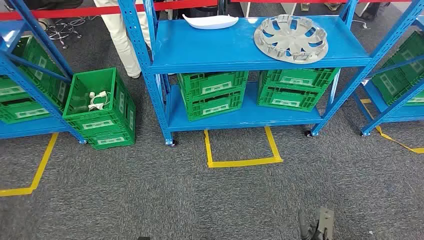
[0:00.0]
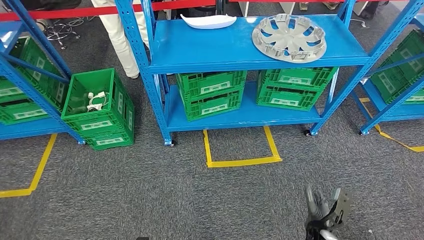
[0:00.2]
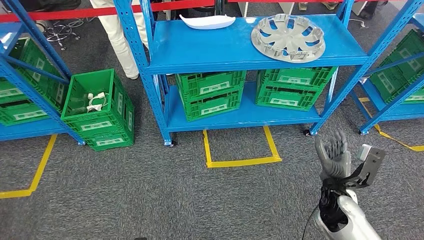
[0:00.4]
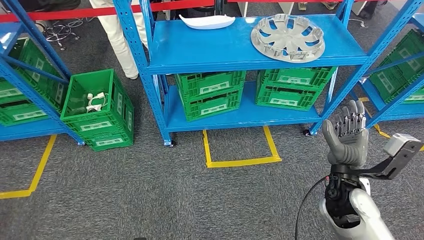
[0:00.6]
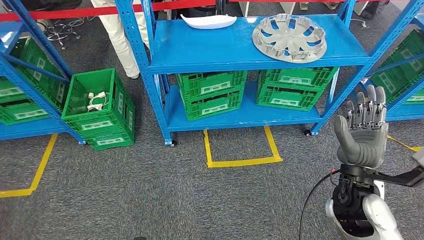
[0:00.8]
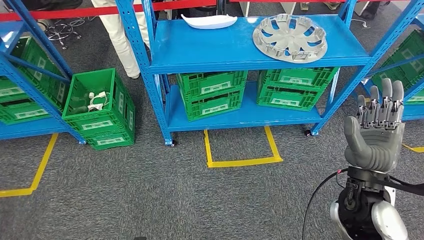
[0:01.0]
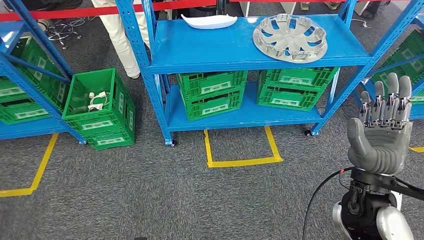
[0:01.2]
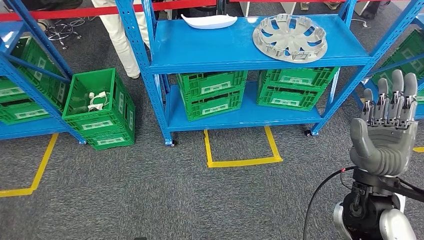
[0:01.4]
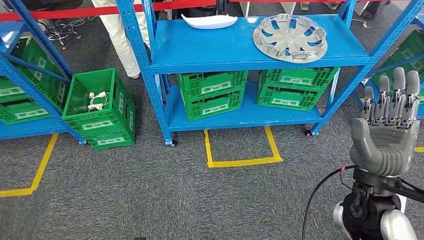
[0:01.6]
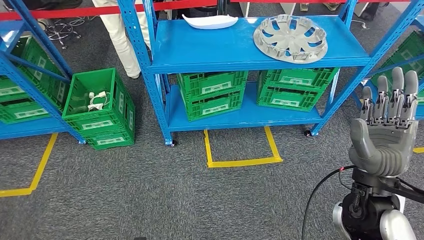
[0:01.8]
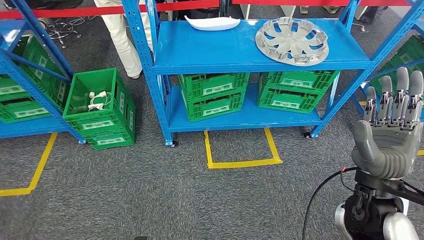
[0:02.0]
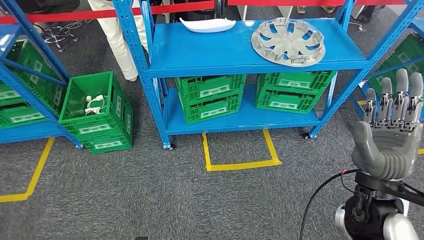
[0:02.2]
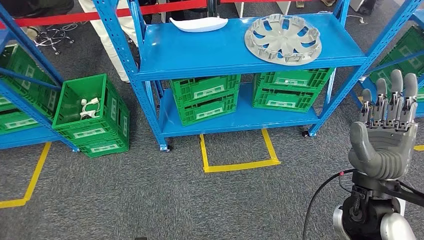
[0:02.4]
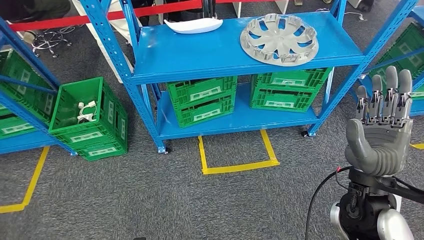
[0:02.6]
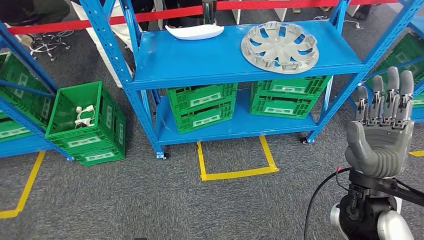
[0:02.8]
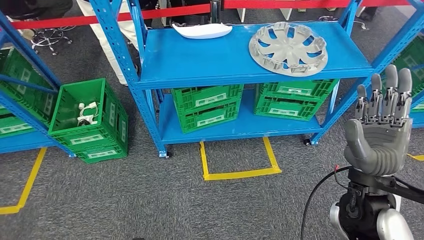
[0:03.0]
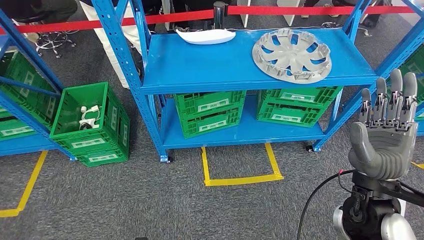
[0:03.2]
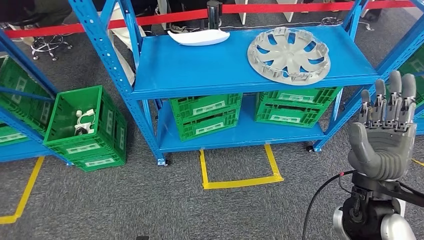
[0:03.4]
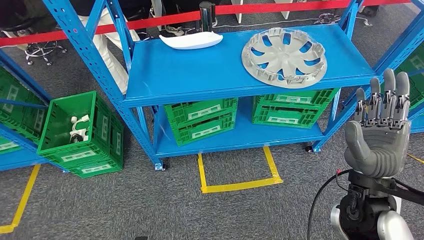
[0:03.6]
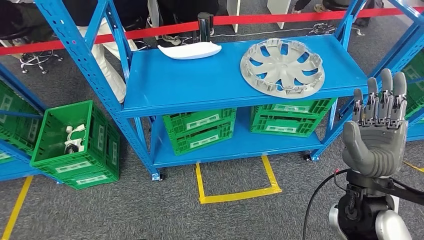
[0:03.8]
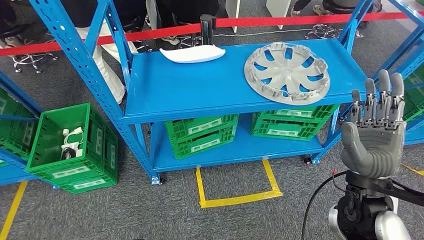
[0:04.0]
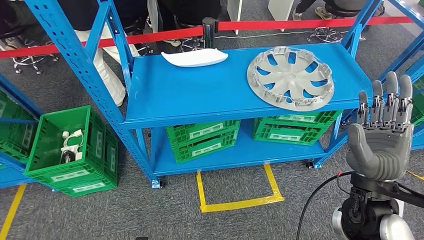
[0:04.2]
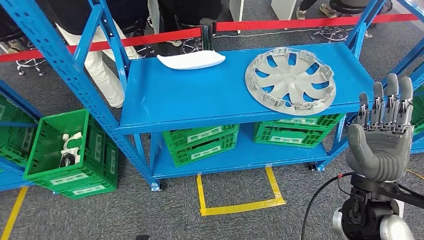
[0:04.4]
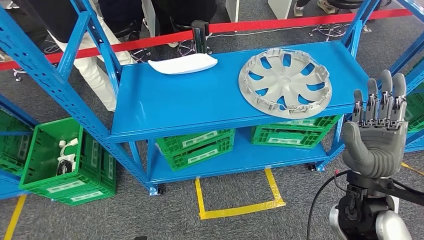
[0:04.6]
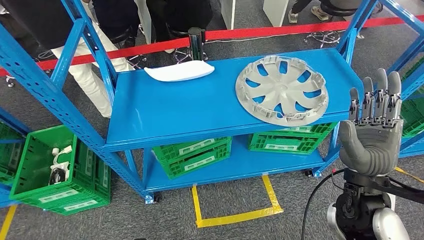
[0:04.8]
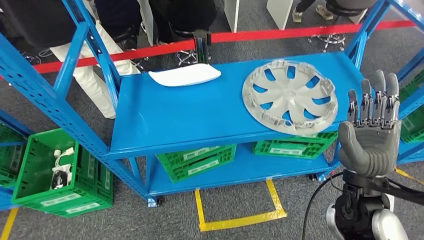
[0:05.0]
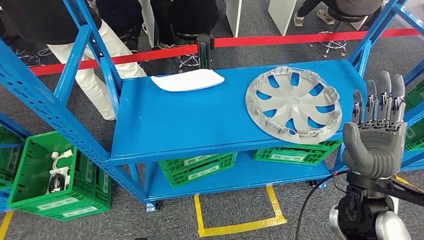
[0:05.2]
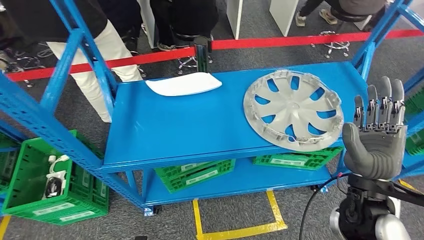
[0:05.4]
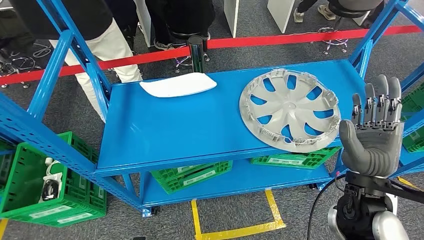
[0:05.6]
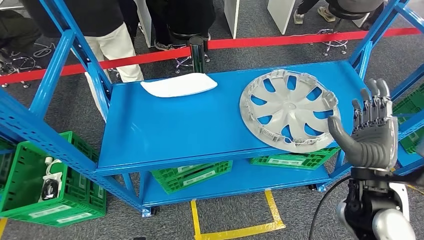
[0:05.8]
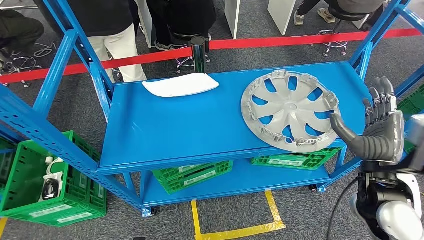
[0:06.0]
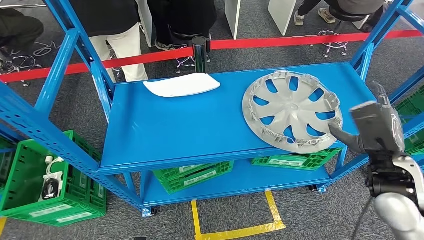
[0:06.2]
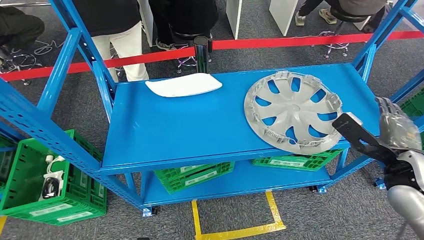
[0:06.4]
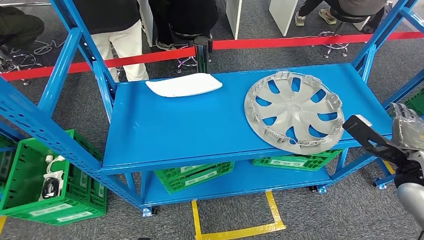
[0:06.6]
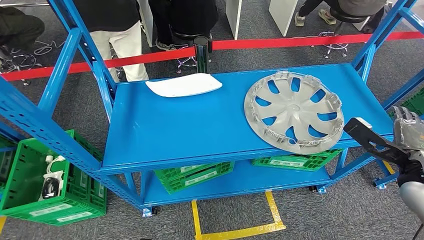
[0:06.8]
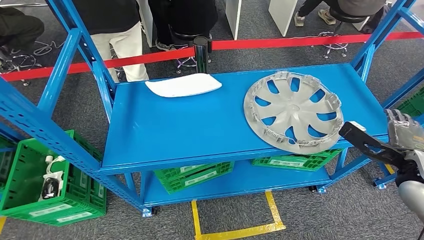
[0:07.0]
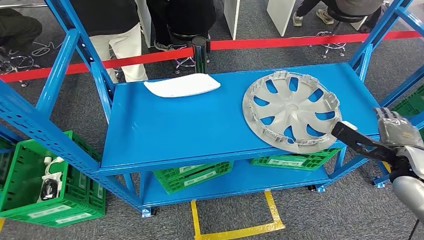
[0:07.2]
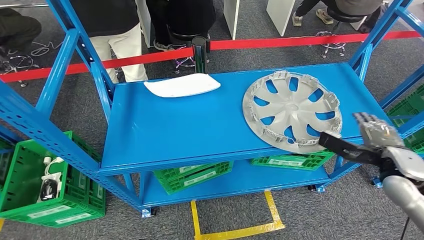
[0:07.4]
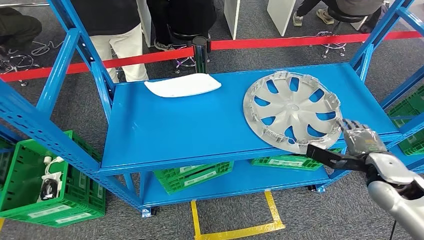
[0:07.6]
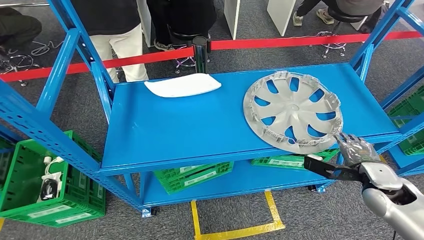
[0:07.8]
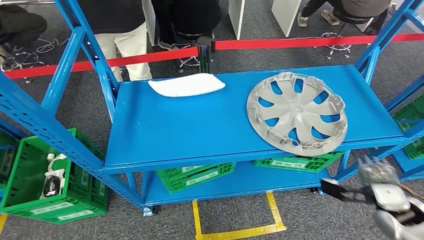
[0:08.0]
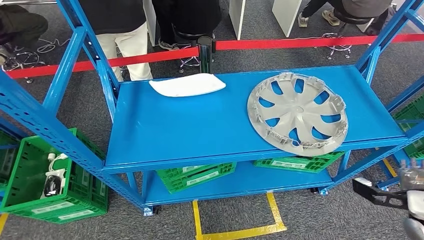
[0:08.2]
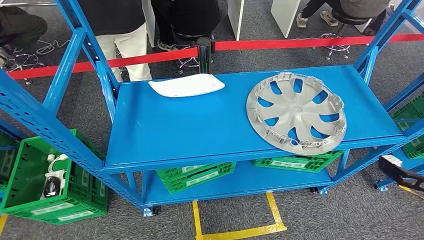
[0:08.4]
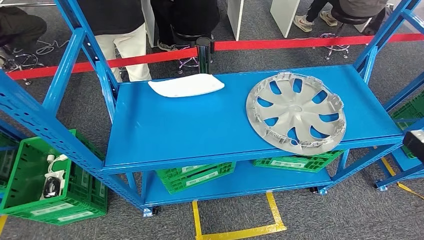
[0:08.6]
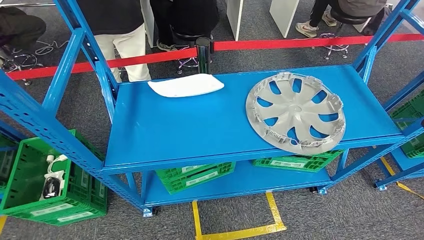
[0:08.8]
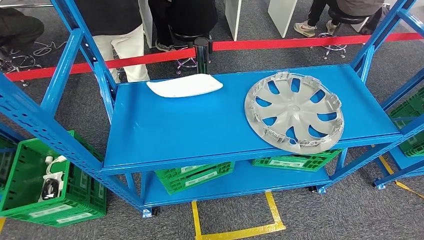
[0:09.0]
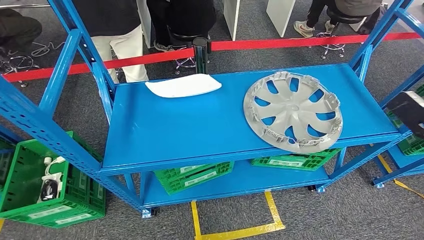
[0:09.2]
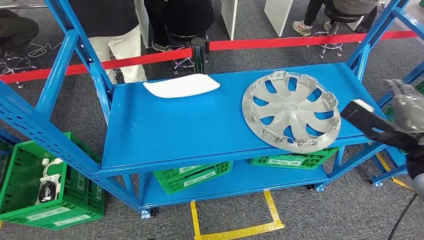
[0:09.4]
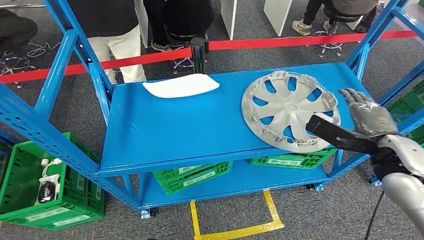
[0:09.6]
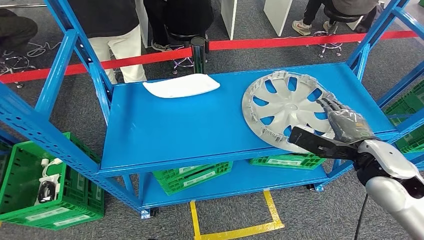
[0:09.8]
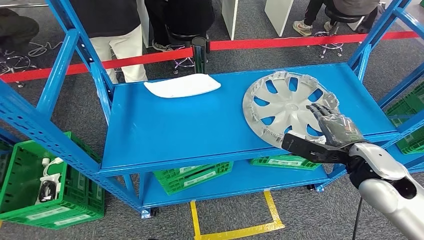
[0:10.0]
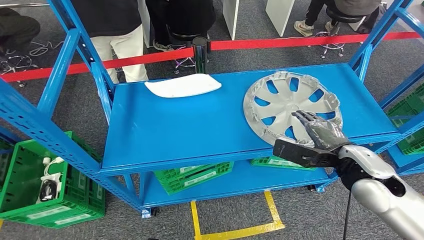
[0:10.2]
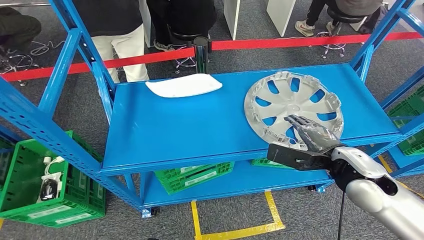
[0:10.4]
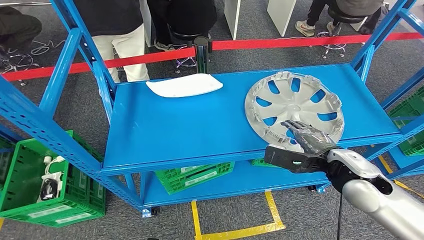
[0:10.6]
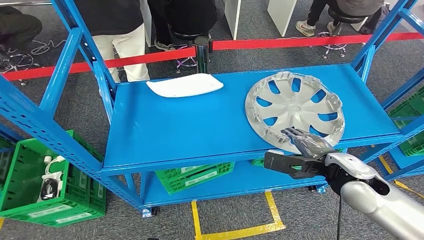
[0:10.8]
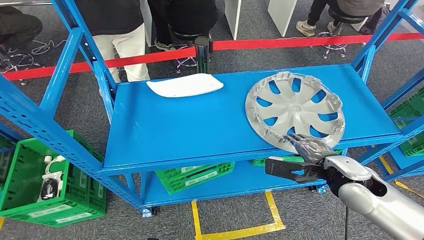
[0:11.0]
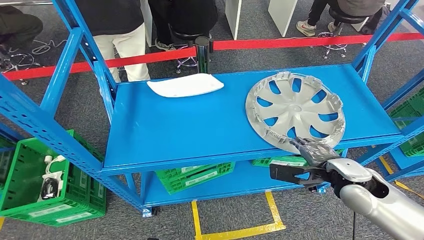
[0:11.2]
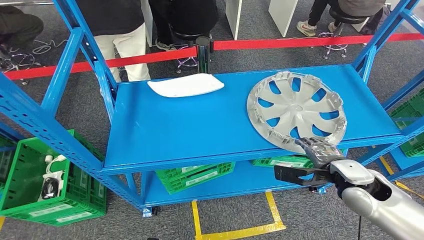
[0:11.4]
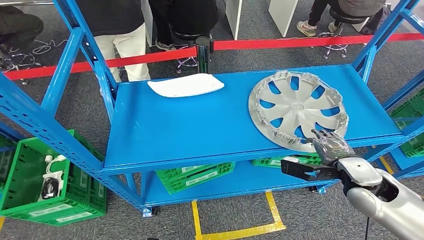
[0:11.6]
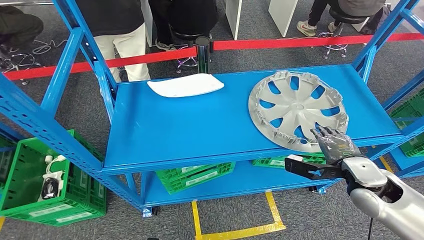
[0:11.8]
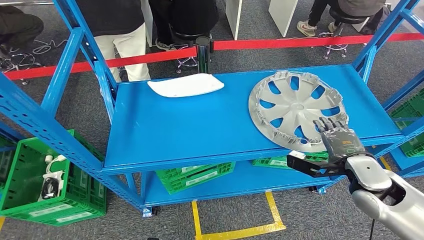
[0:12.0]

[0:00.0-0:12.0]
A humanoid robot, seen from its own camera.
0:06.0 to 0:07.6: The right hand travels to the right and downward by about 15 cm.
0:07.6 to 0:09.0: The right hand heads upward, backward and to the right, covering about 15 cm.
0:09.0 to 0:10.4: The right hand travels to the left, downward and forward by approximately 20 cm.
0:10.4 to 0:12.0: The right hand travels to the right by approximately 5 cm.

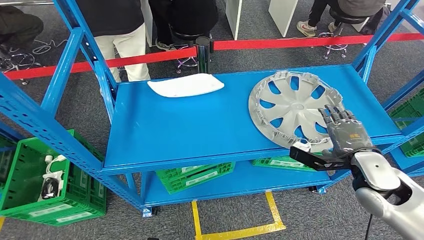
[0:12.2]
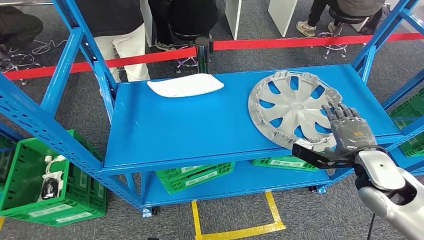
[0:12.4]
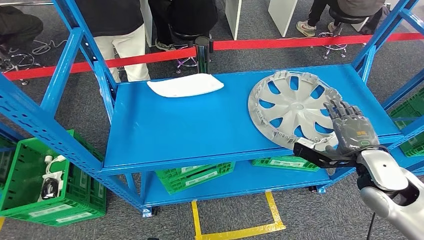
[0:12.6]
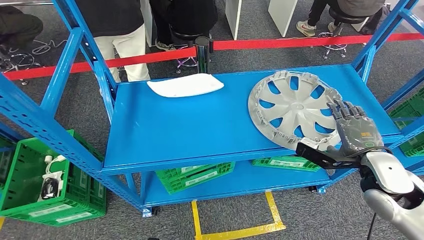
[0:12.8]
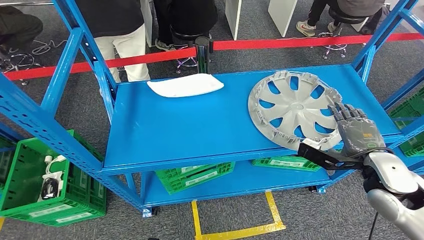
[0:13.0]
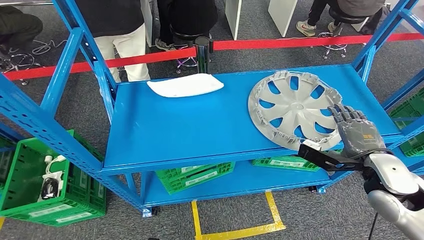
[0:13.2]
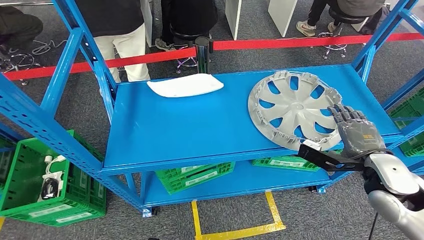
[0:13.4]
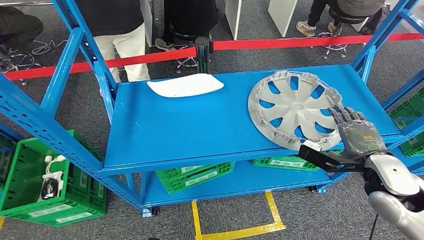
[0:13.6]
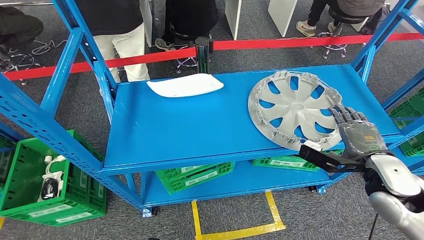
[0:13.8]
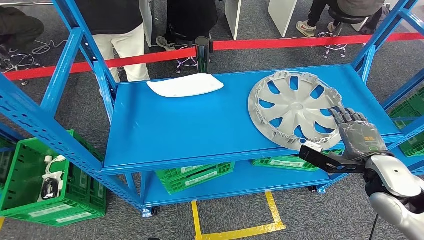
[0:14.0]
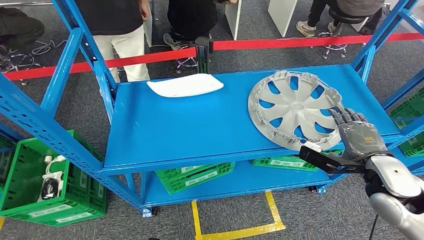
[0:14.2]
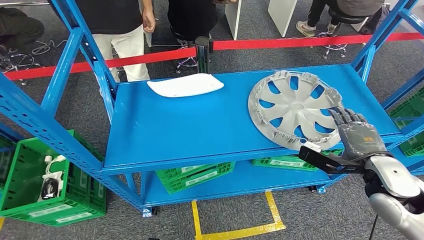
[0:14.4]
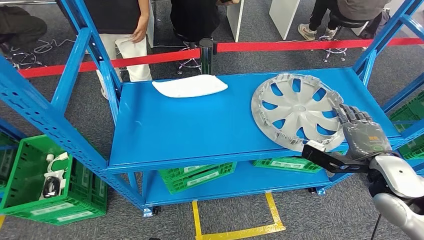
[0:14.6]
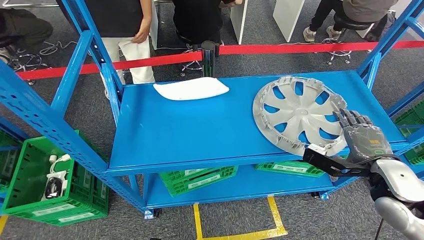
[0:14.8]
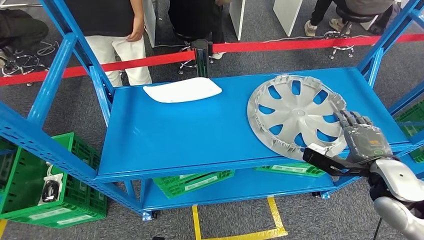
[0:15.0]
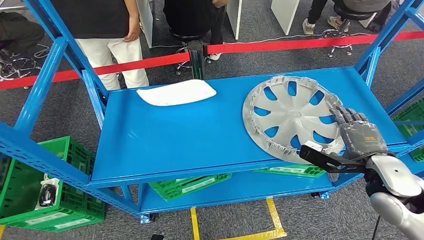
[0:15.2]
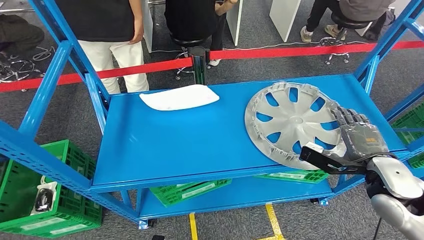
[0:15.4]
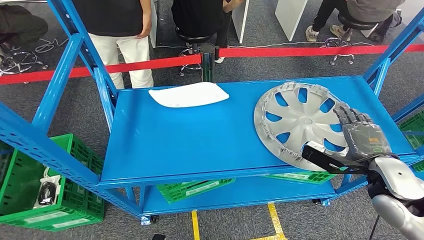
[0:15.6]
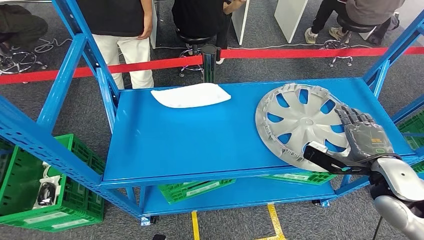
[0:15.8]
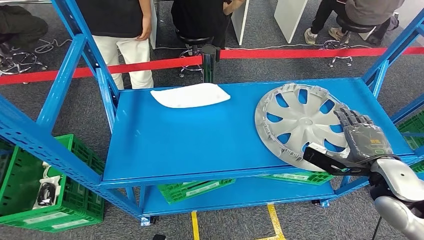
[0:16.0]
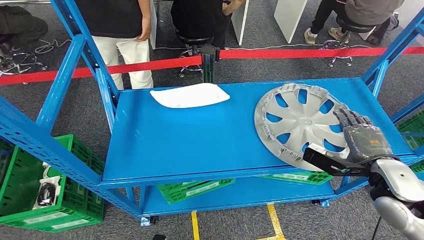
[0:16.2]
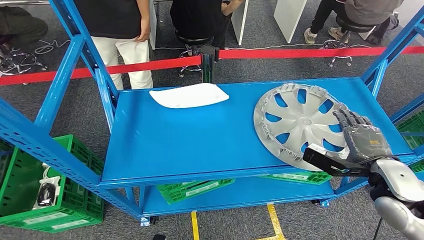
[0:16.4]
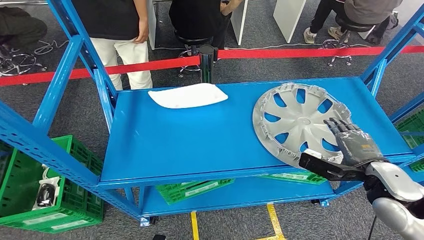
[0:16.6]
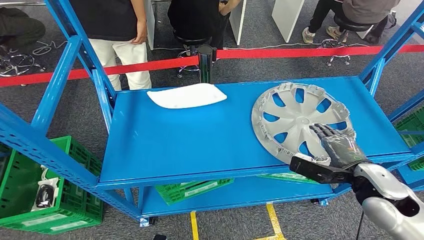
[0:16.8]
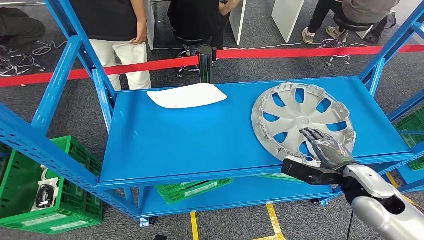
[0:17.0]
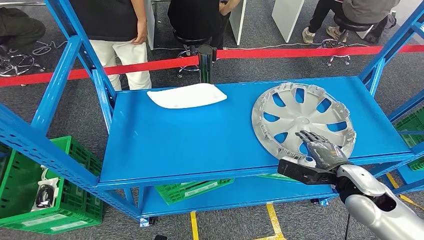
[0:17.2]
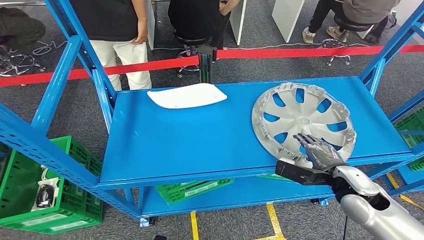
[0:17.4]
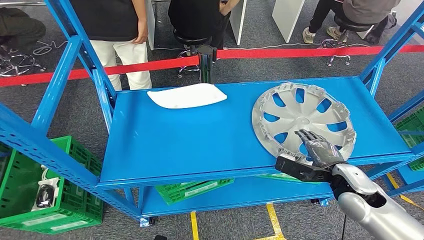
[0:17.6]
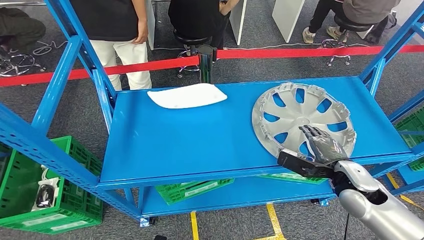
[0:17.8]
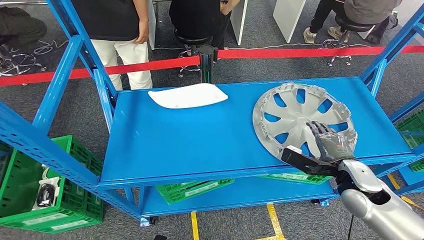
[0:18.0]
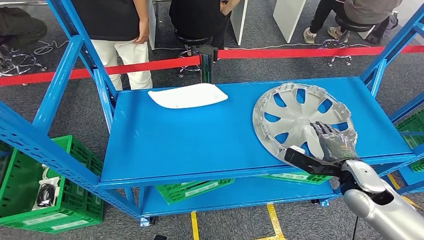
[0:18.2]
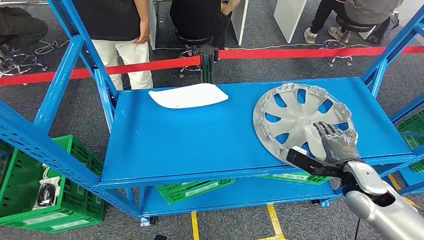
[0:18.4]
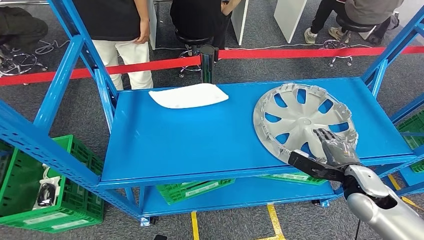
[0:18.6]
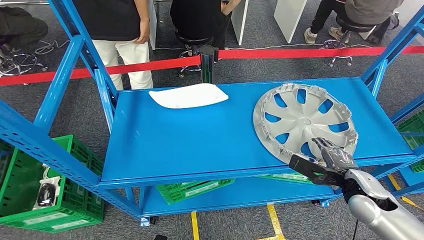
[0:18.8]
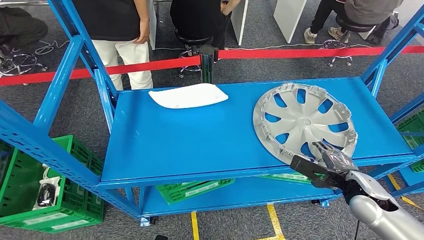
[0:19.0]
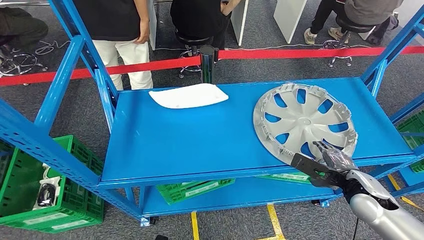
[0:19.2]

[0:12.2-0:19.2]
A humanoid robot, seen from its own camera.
0:12.2 to 0:13.6: The hands stay close to where they were, moving slightly.
0:16.4 to 0:17.8: The right hand heads downward, covering approximately 5 cm.
0:17.8 to 0:19.2: The hands move only a little.
